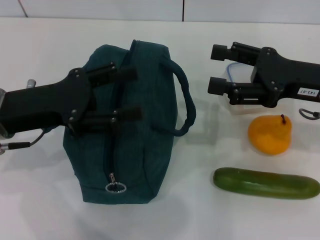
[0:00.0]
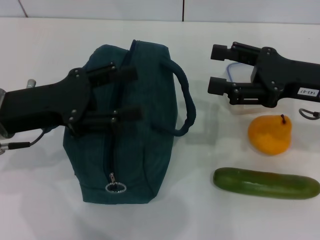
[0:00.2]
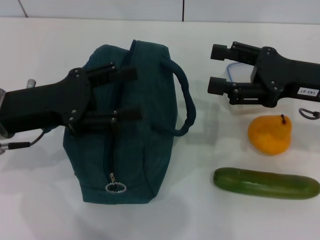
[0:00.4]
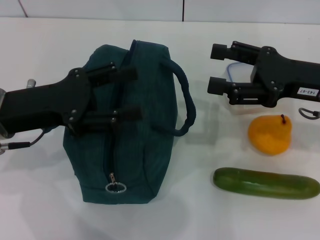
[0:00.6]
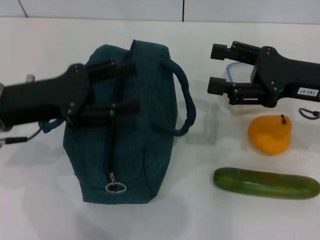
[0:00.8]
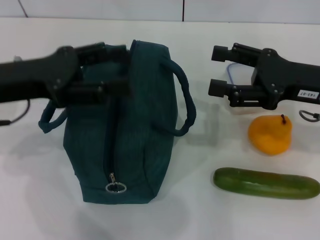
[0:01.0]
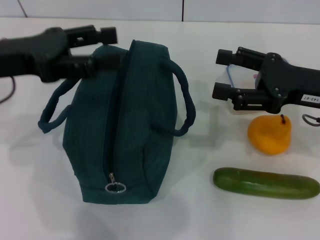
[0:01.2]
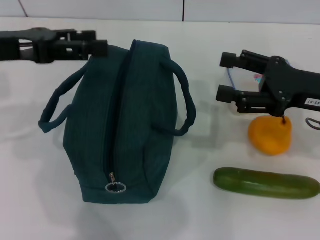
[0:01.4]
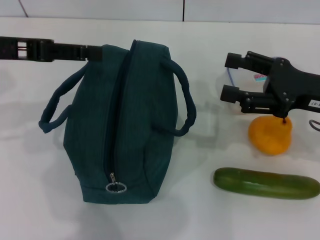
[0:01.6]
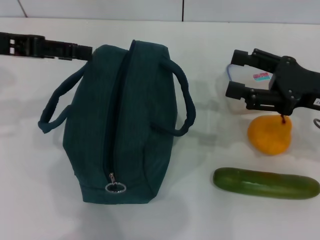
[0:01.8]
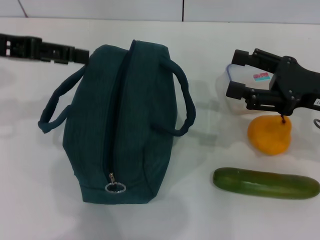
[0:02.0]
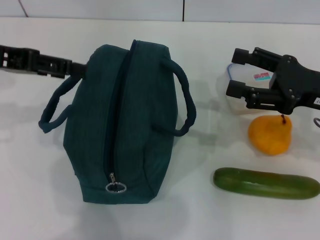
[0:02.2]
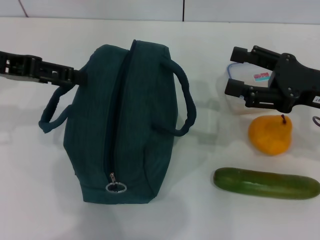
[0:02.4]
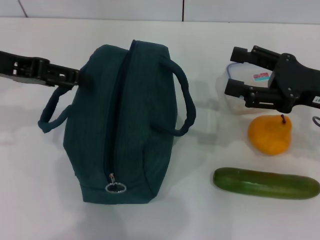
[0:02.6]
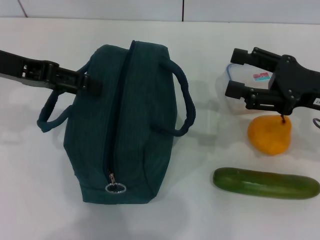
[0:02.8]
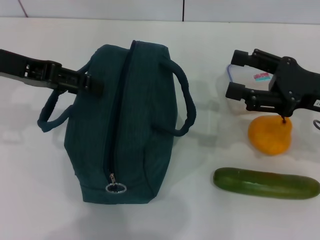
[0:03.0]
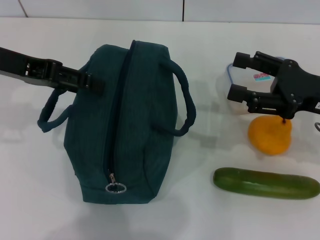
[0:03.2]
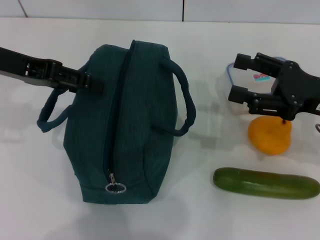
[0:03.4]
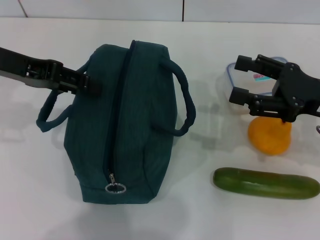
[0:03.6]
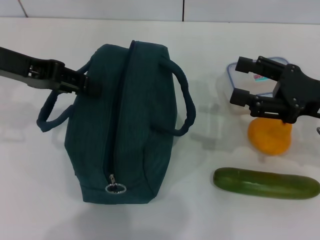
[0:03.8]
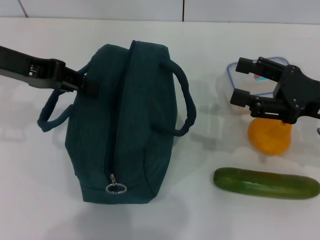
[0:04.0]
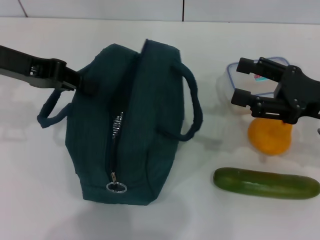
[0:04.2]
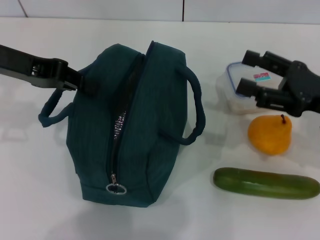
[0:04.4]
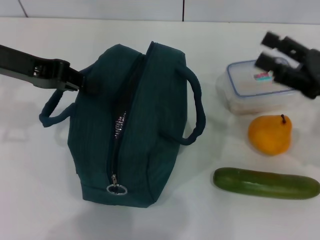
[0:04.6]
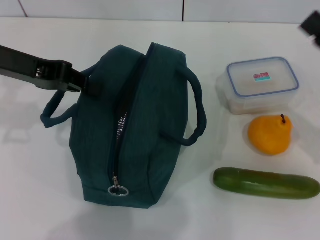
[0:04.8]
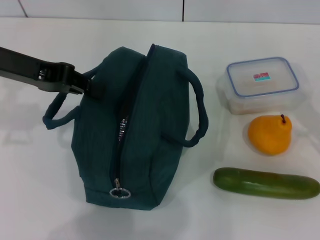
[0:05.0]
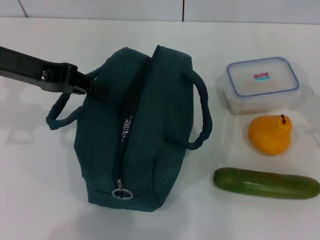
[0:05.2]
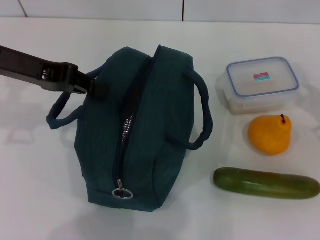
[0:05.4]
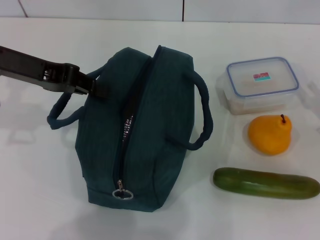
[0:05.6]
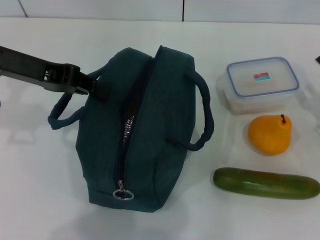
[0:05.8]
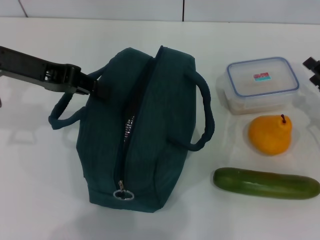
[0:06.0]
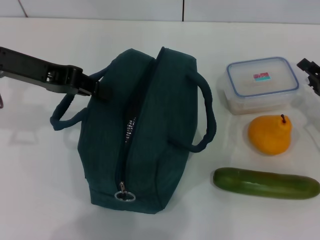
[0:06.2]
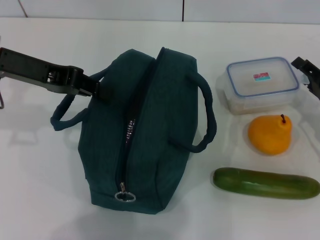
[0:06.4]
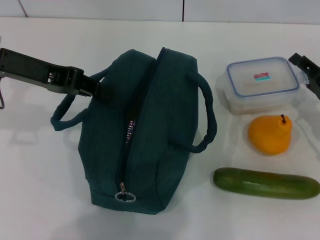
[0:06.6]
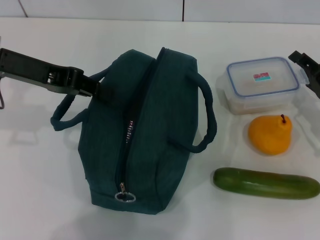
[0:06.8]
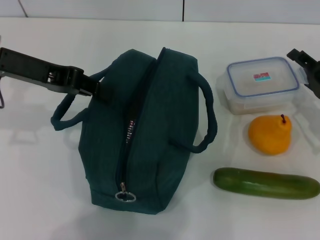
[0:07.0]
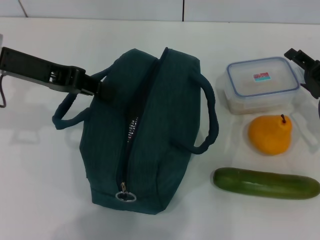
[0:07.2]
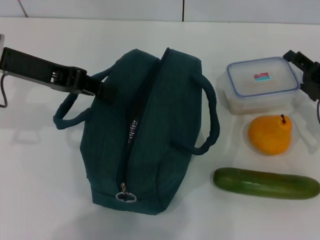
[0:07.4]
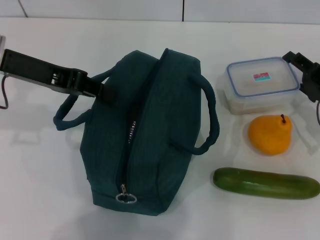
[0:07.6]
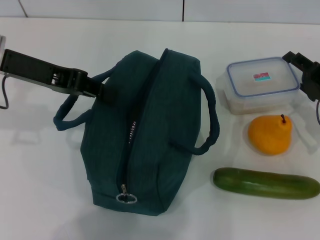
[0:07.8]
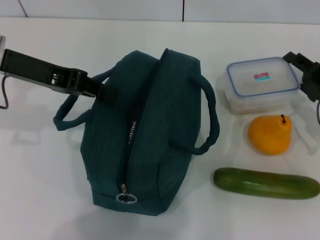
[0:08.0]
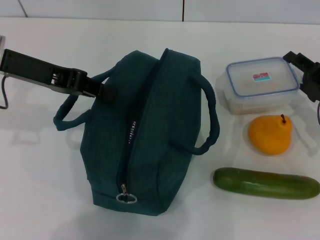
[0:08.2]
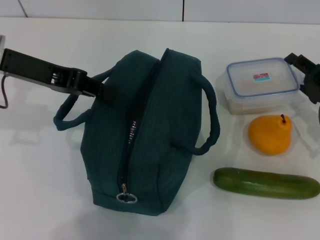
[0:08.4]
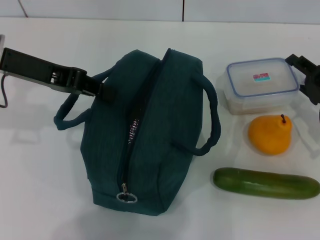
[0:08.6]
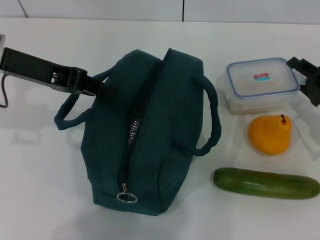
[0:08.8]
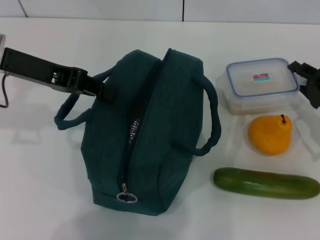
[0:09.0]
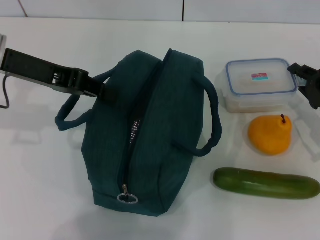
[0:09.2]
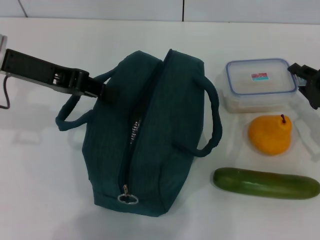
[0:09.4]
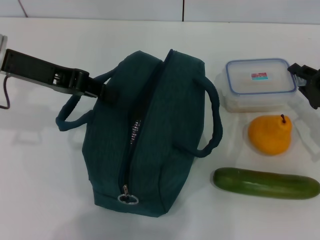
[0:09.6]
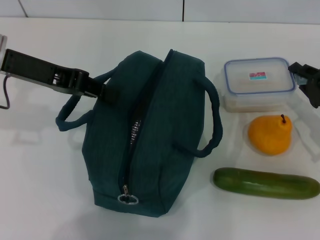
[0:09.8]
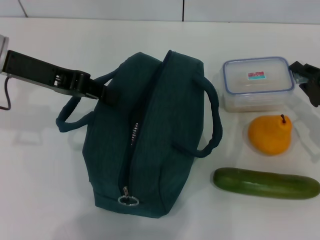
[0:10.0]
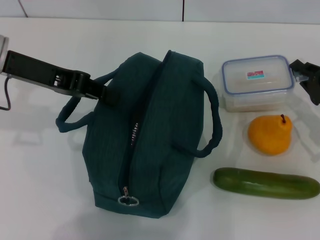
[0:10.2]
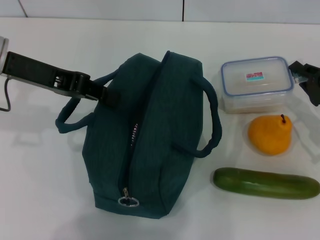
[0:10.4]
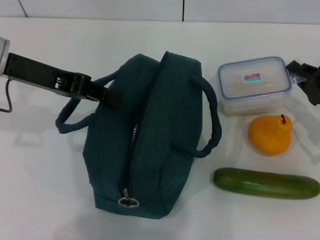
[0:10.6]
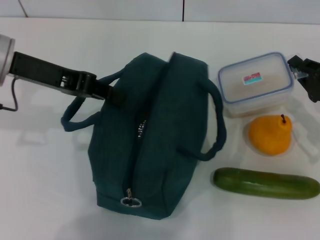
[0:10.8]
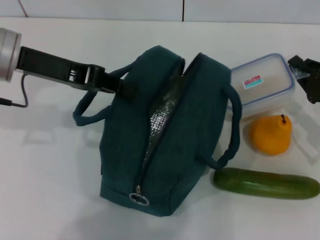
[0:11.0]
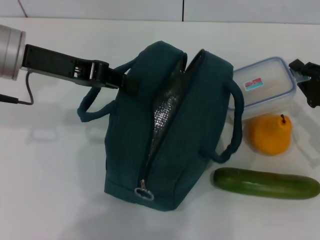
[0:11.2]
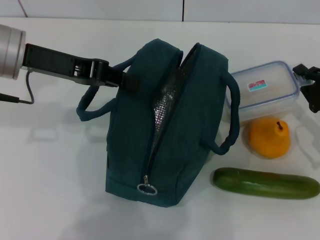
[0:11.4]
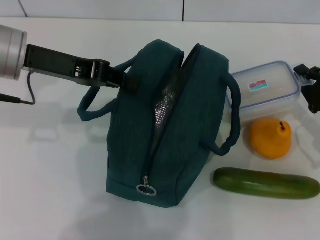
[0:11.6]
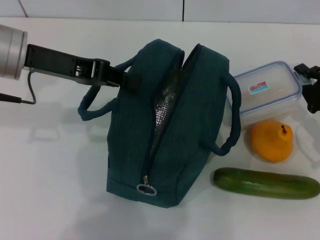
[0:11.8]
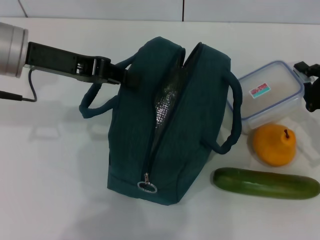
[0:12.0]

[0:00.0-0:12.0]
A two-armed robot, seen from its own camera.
Step, 0:00.0 to 0:04.4: Hold the lunch bag with your left hand.
Step, 0:04.6 to 0:10.8: Pick up the lunch box with your right hand.
0:00.0 to 0:01.6: The left gripper moves upward, about 10 cm.
0:03.0 to 0:04.4: The left gripper closes its fingers.
0:04.4 to 0:06.0: The right gripper travels downward and to the right by approximately 10 cm.
0:06.0 to 0:07.6: The grippers make only small movements.
0:07.6 to 0:09.0: Both grippers stay about where they are.
0:09.0 to 0:10.4: The two grippers keep their place.

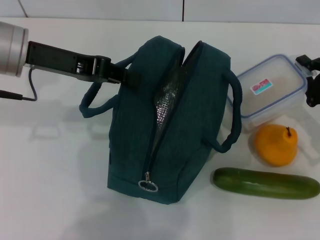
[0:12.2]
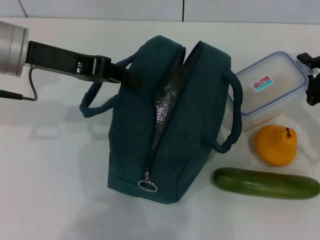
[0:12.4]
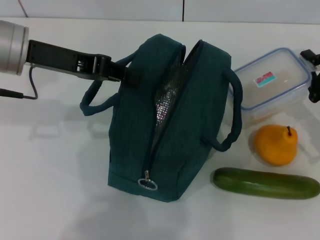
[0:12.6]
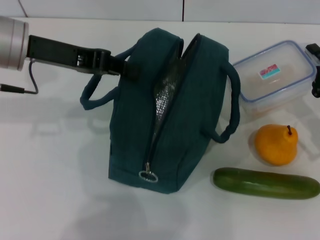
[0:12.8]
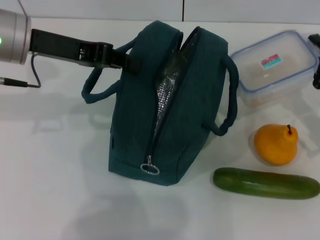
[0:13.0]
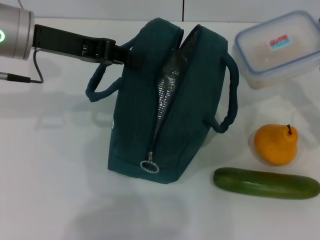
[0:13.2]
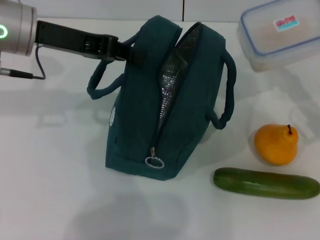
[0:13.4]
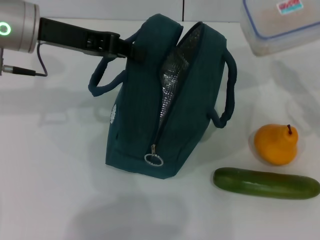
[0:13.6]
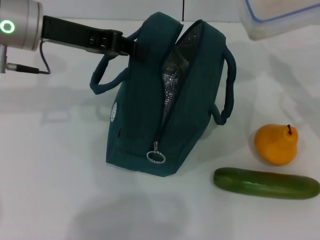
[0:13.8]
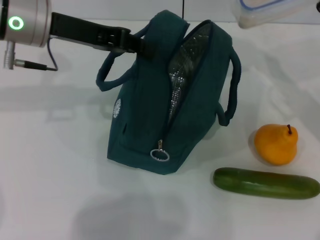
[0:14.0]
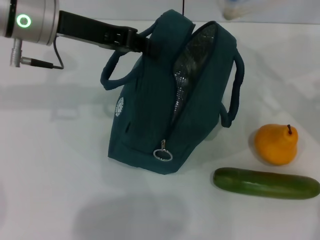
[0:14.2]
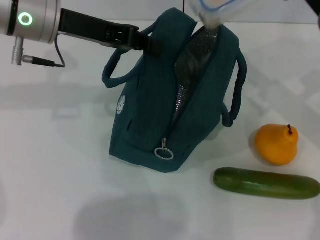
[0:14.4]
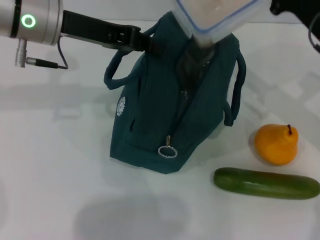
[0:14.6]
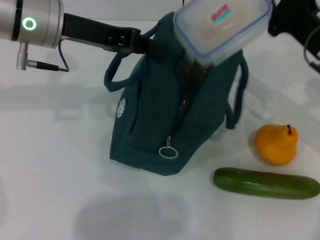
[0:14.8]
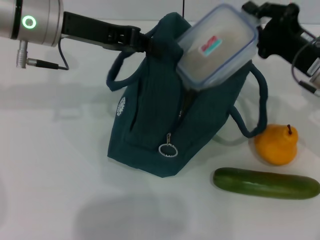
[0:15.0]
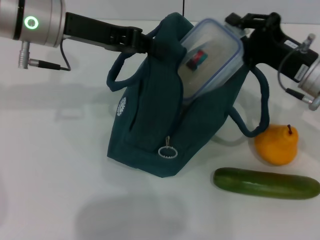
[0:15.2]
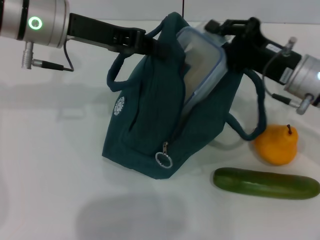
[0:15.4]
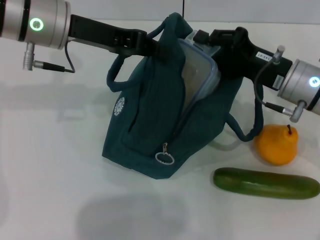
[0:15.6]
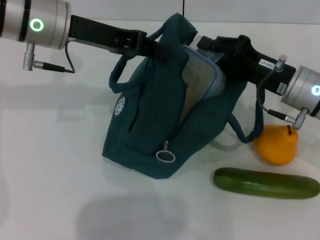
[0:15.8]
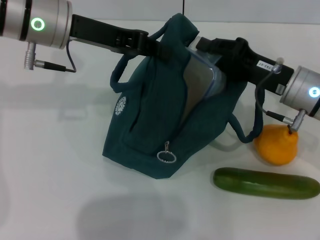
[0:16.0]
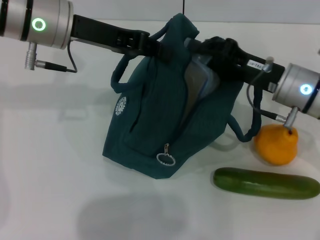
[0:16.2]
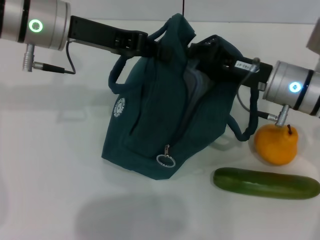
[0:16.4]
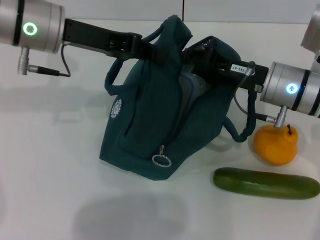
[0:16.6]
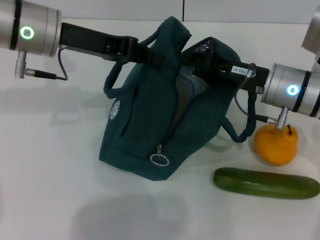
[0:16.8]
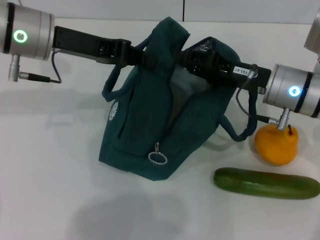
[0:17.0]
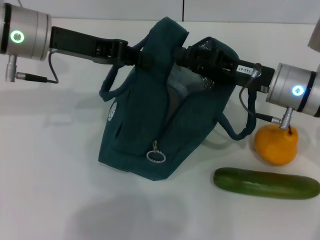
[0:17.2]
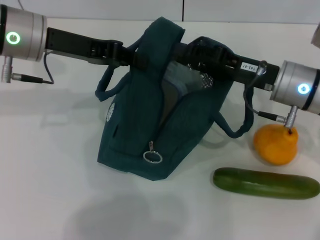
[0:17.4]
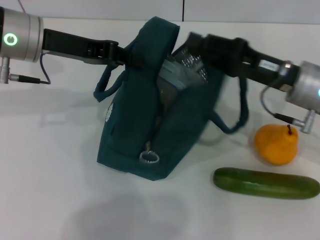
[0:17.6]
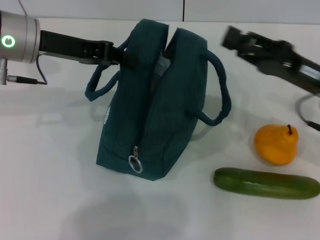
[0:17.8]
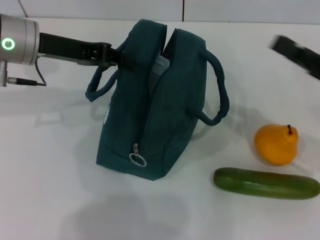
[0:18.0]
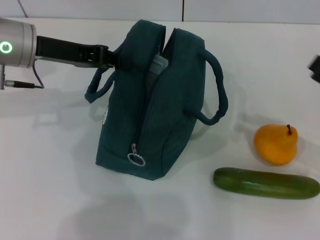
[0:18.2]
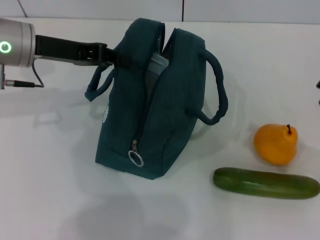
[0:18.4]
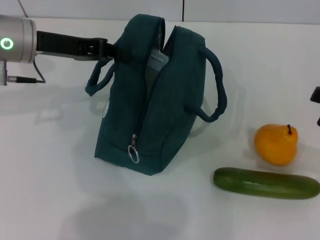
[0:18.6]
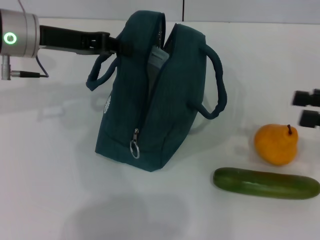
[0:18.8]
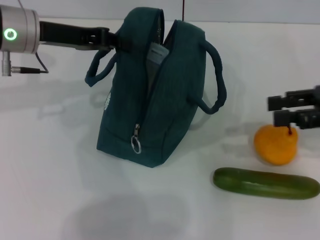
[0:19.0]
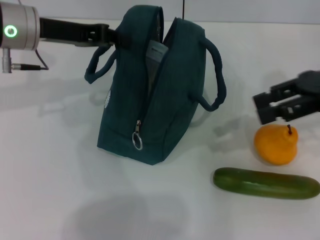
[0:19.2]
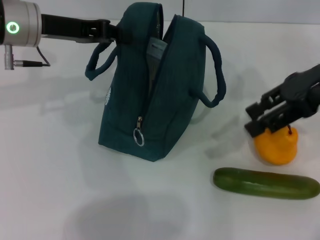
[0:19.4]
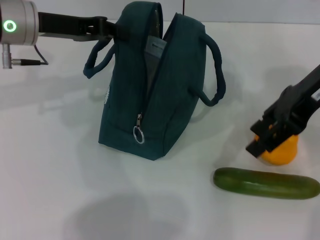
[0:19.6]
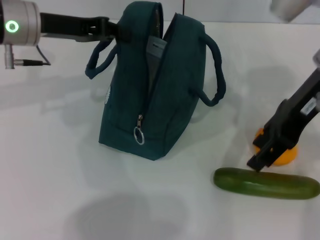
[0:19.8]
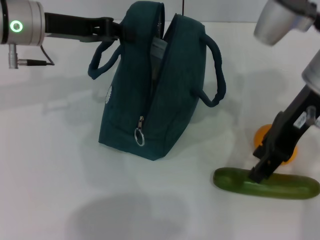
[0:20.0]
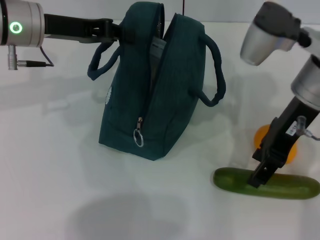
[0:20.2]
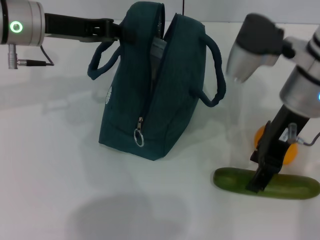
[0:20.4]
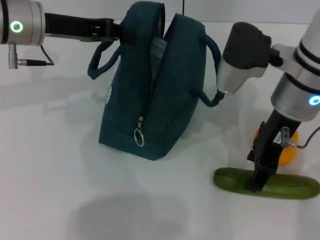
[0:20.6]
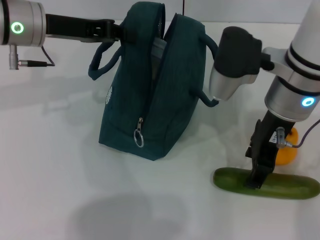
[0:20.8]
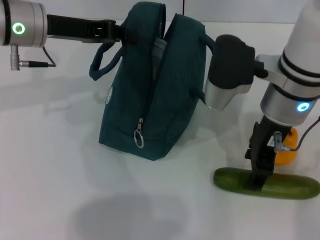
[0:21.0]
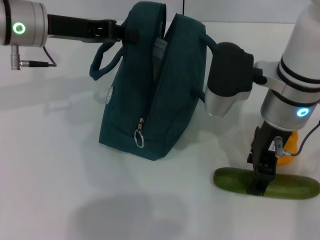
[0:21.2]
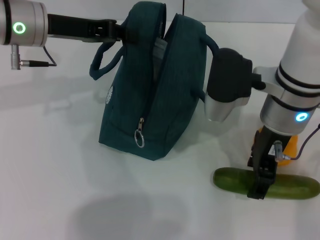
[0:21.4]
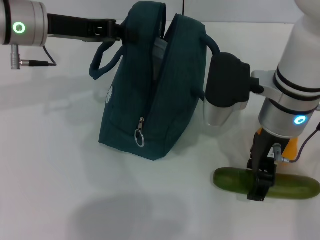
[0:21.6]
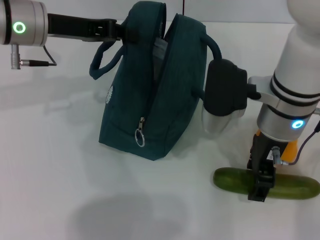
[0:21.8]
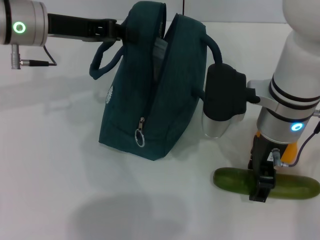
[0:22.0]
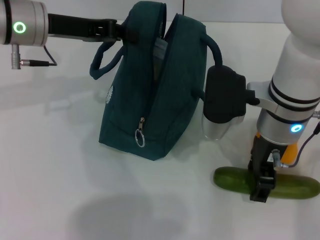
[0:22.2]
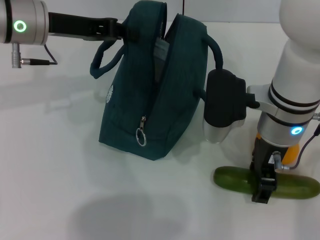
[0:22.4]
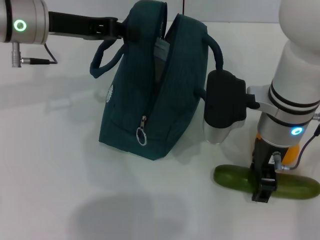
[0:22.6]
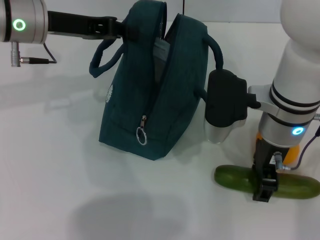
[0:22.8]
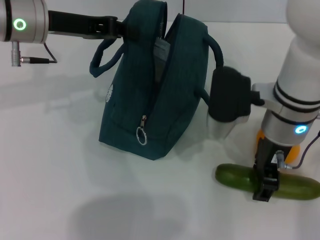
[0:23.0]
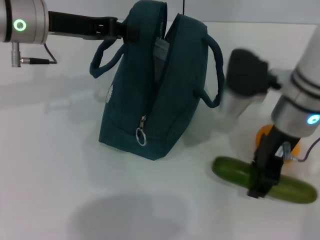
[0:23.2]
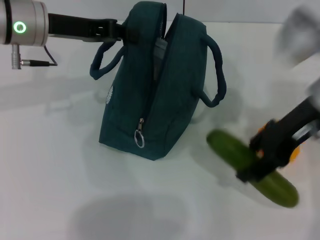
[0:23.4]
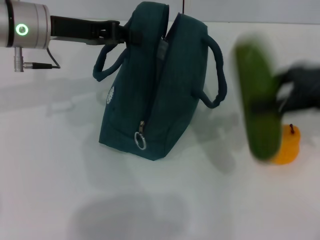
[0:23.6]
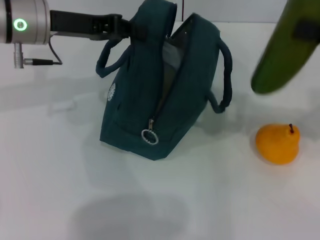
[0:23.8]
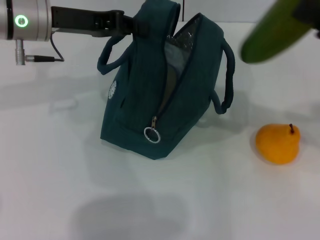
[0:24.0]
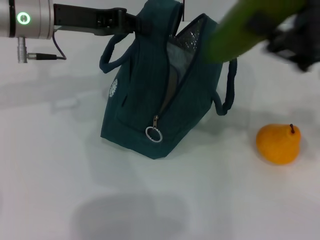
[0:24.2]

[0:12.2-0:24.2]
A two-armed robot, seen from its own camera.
Step, 0:12.2 to 0:17.4: Place the lunch box into the lunch bag with your right hand.
Step, 0:17.6 to 0:22.6: Pick up the cucumber with your right hand.
0:12.2 to 0:13.8: The right gripper is displaced upward by approximately 5 cm.
0:13.8 to 0:15.2: The right gripper goes roughly 5 cm to the left.
0:15.2 to 0:16.6: The right gripper moves to the left, some 5 cm.
0:16.6 to 0:18.2: The right gripper heads to the right and backward, covering some 20 cm. The left gripper changes place by roughly 5 cm.
0:18.2 to 0:19.8: The right gripper heads to the left, upward and forward, covering approximately 20 cm, and opens its fingers.
0:19.8 to 0:21.2: The right gripper travels downward and to the left by some 10 cm.
0:21.2 to 0:22.6: There are only small adjustments of the grippers.
0:22.6 to 0:24.2: The right gripper heads to the right, covering approximately 15 cm.
